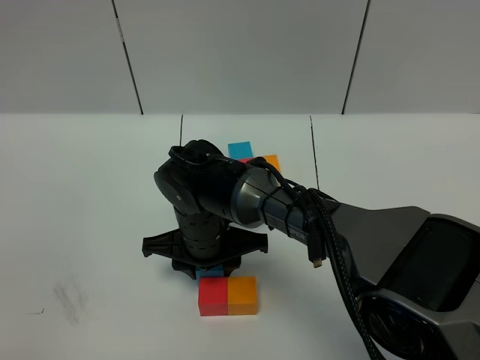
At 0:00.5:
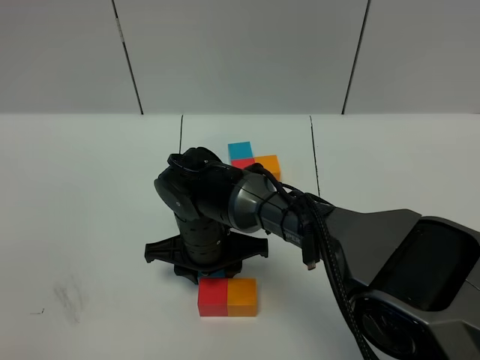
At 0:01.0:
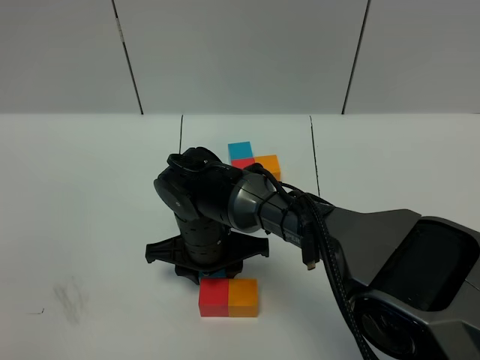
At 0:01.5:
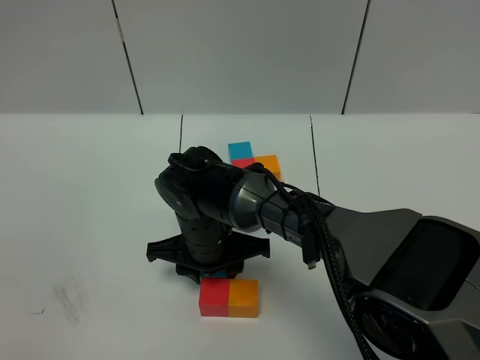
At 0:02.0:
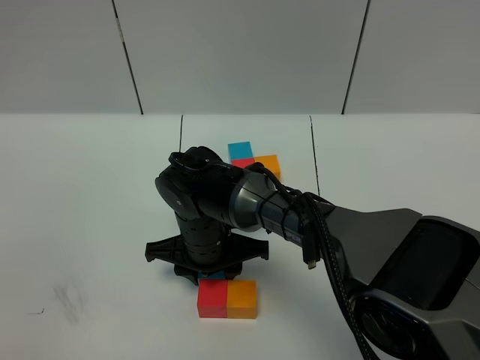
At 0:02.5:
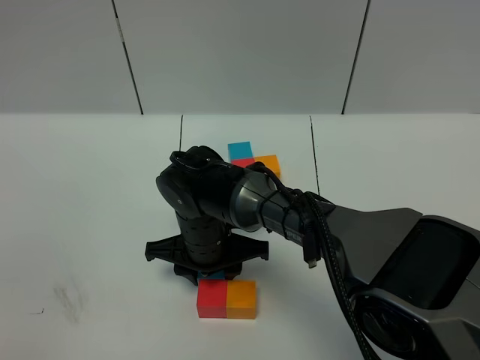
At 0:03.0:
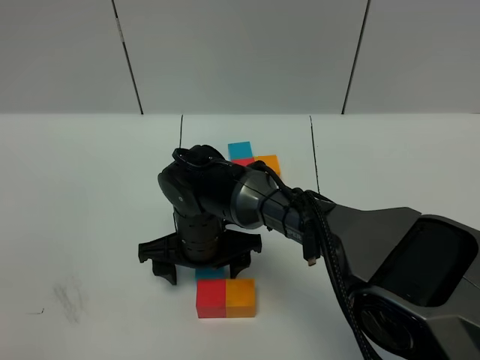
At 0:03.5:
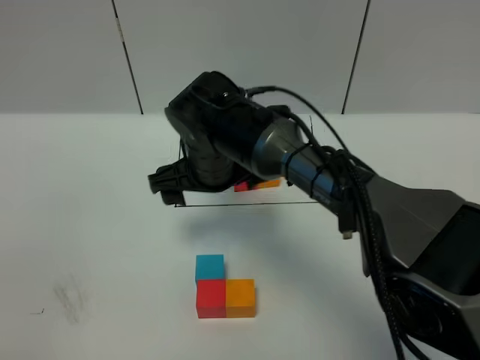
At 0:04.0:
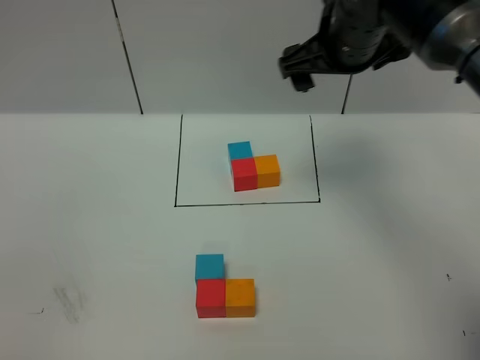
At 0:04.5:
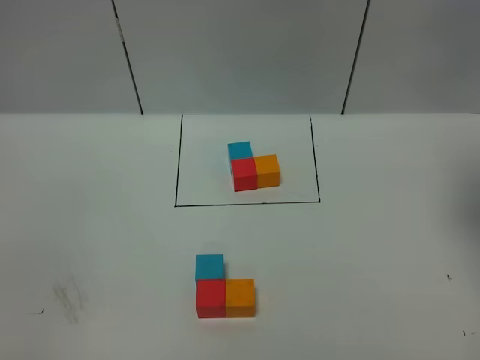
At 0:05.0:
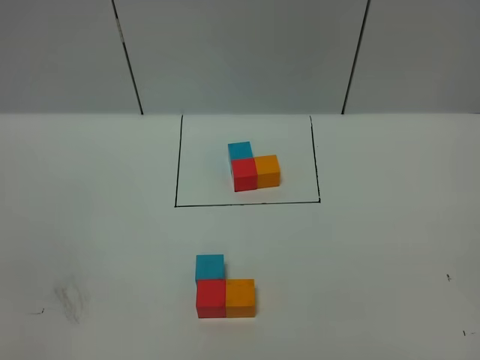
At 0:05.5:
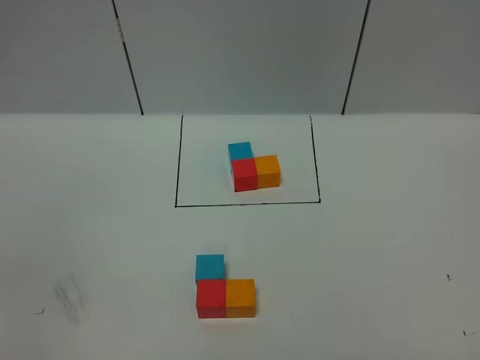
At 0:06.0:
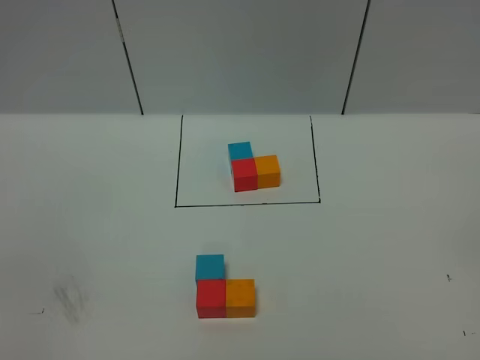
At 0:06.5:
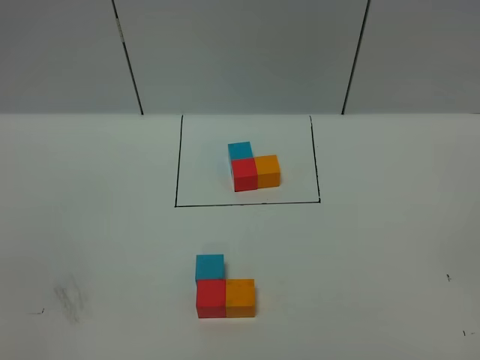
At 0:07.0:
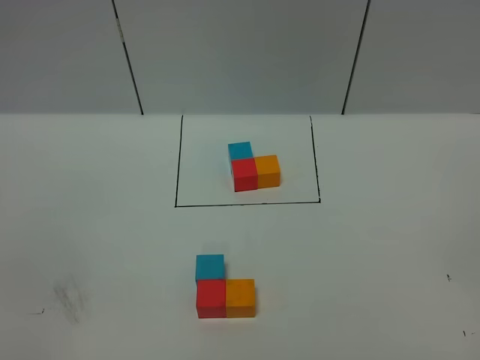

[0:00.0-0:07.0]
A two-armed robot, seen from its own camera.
Task of the whole recording: According to the building block template in front, assemble the scattered blocks together.
Step, 0:00.0 to 0:03.0: Put the blue cube on the behind of the red cube.
0:00.0 to 0:02.0: Neither gripper changes place.
0:02.0 to 0:03.5: The right gripper is displaced upward by some 10 cm, and opens.
0:03.5 to 0:05.0: The right gripper moves to the right, backward and upward, some 50 cm.

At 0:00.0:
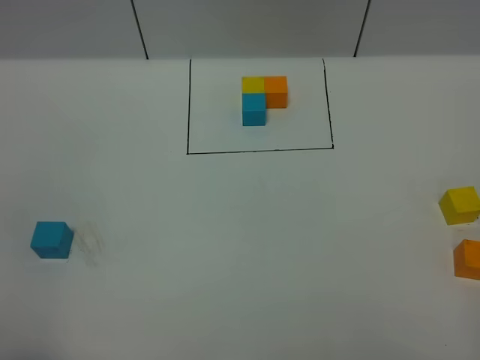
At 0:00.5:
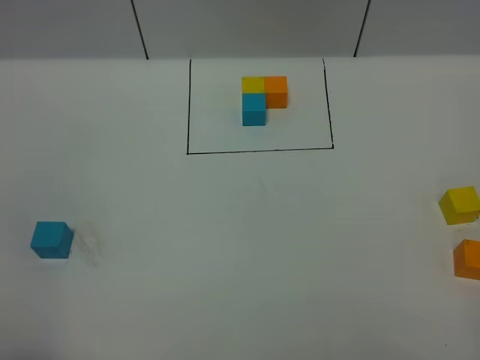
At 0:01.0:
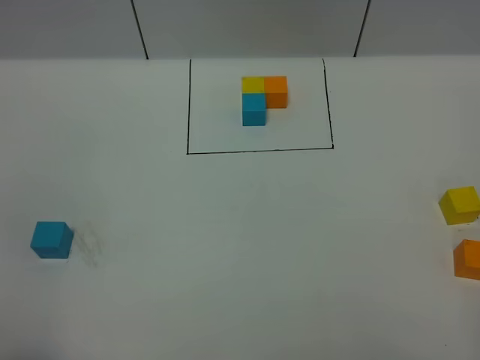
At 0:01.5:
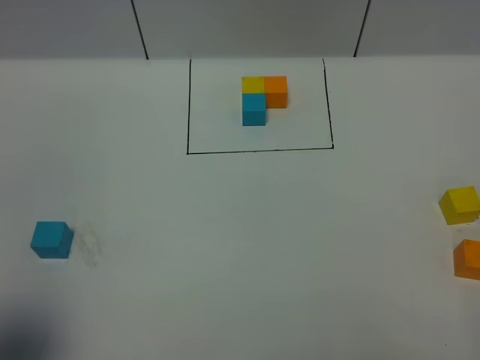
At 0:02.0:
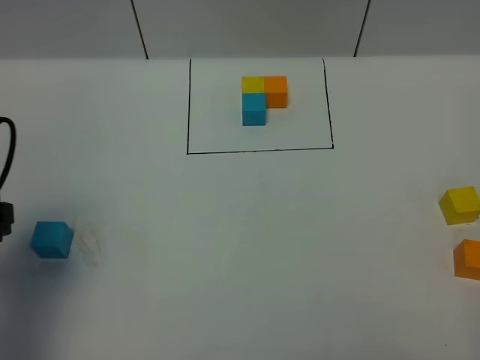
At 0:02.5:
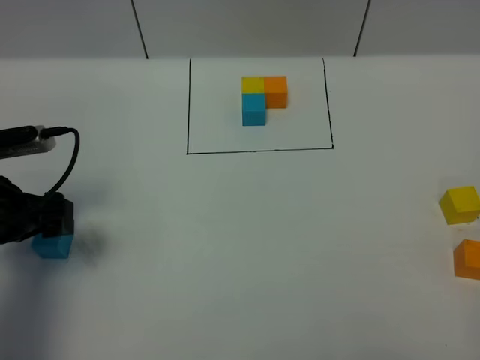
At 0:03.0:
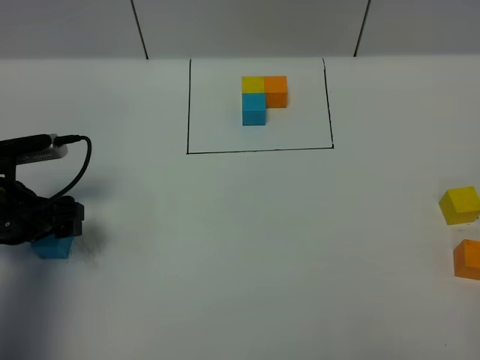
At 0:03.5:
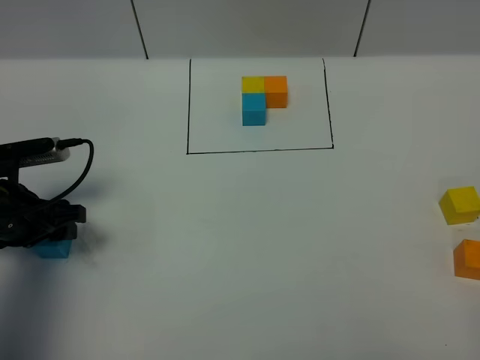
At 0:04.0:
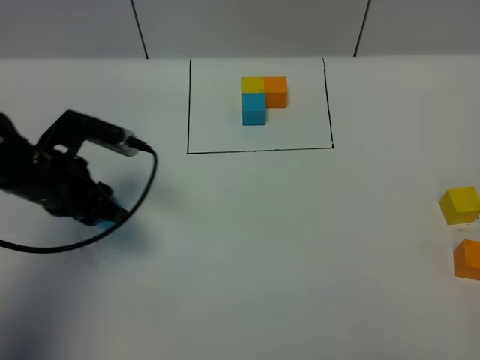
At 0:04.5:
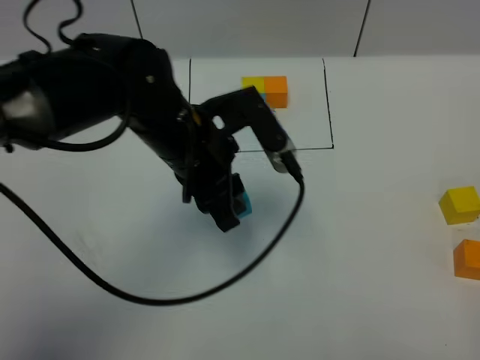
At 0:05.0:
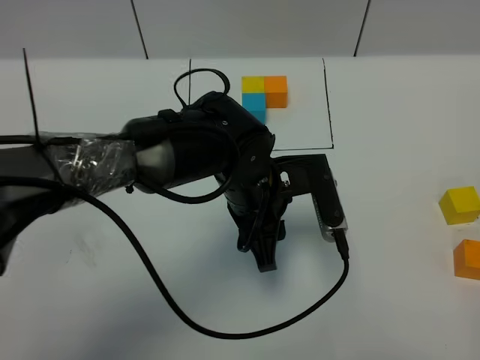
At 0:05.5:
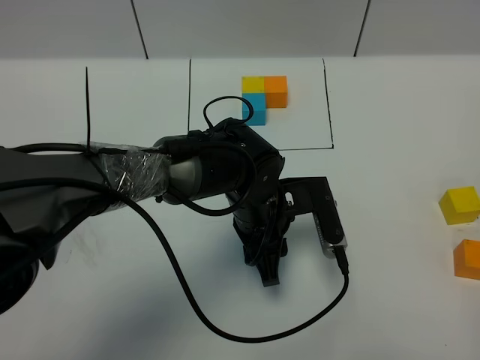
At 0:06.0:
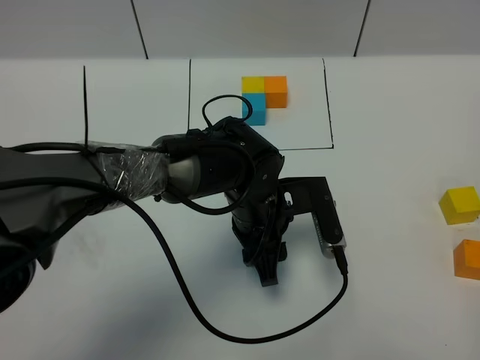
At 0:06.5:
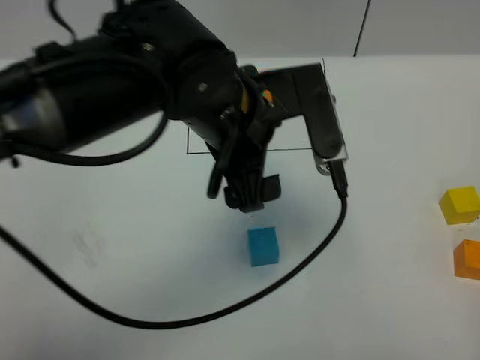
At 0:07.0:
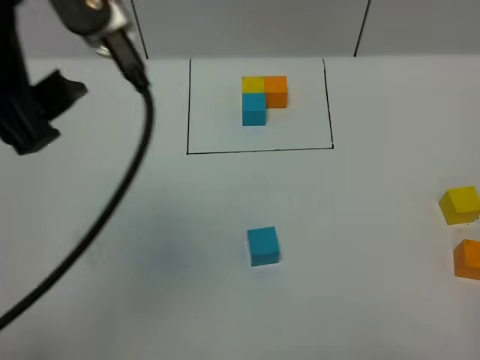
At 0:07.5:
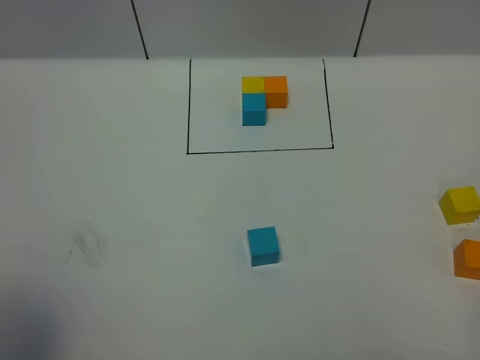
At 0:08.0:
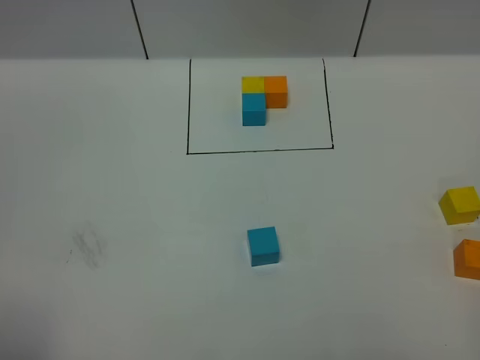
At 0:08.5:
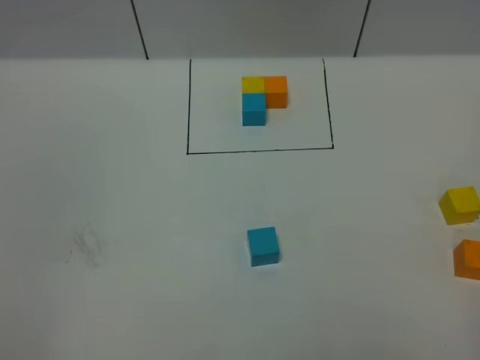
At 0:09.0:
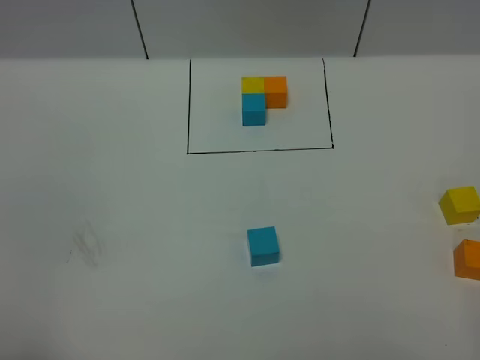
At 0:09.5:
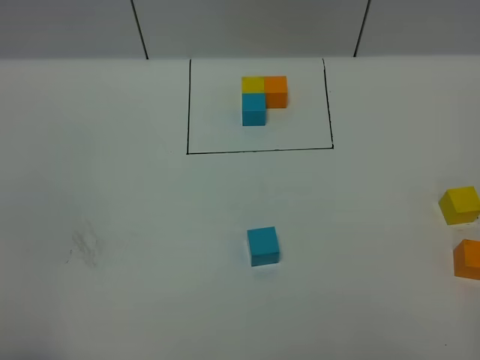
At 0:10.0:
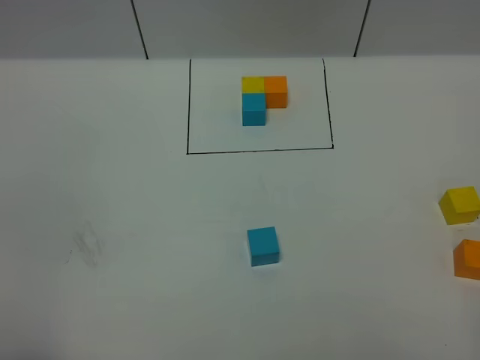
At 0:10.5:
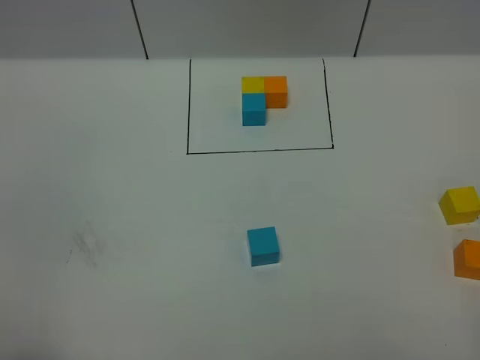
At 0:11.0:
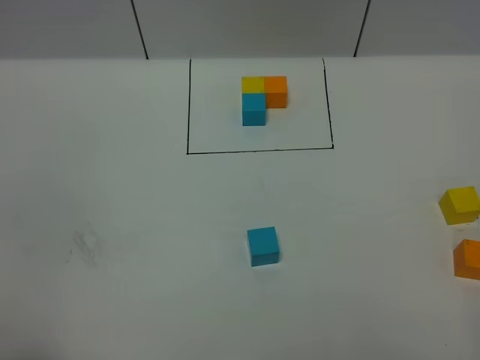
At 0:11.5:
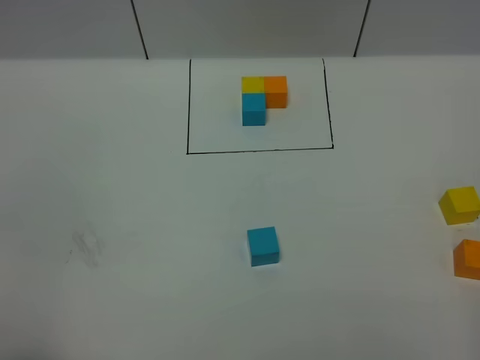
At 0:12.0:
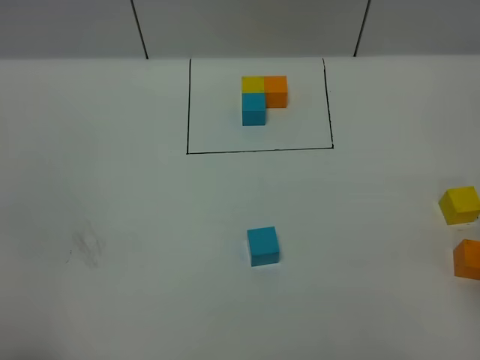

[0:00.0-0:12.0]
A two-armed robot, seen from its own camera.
Task of the whole recording: According to the building block template in front, assemble the scattered blocks together.
Step, 0:02.0 to 0:06.5: Put the blue cube in the center of the table.
0:00.0 to 0:02.0: The left gripper is displaced forward by some 20 cm.
0:02.0 to 0:04.0: The left gripper shifts about 15 cm forward, to the right and downward, and closes.
0:04.0 to 0:06.0: The left gripper goes roughly 25 cm to the right.
0:06.0 to 0:08.0: The left gripper goes approximately 50 cm to the left, backward and upward, and opens up.

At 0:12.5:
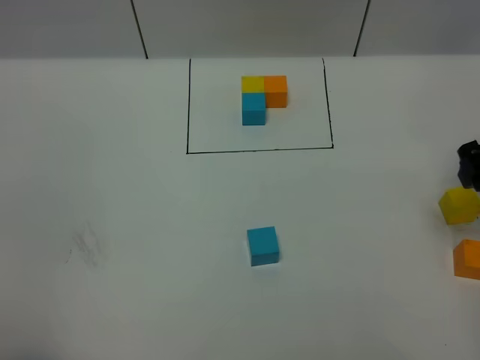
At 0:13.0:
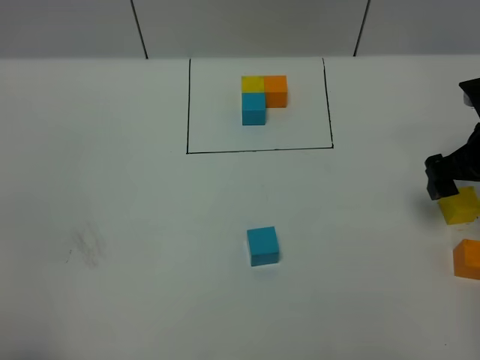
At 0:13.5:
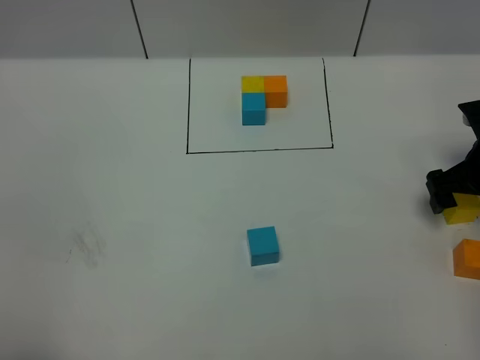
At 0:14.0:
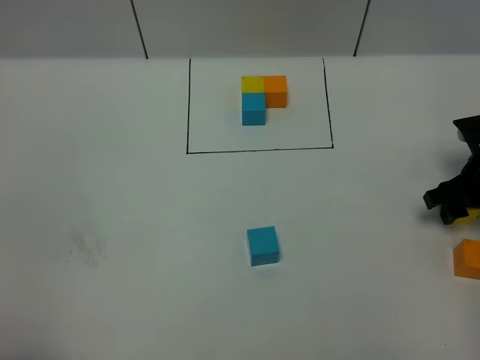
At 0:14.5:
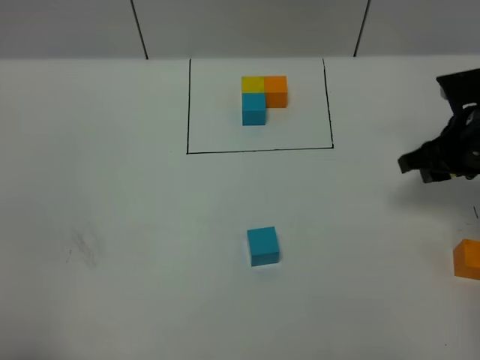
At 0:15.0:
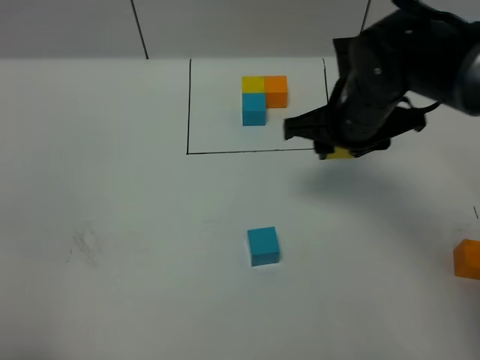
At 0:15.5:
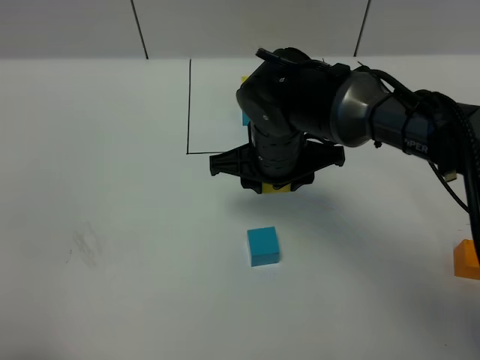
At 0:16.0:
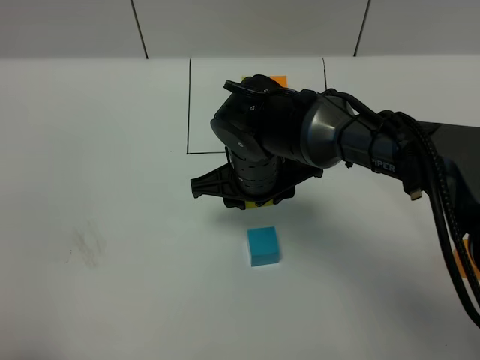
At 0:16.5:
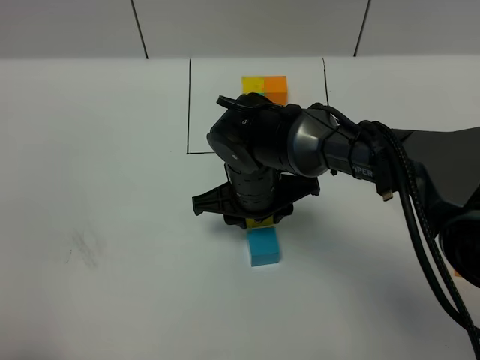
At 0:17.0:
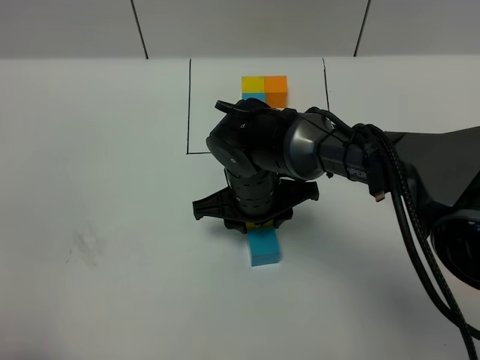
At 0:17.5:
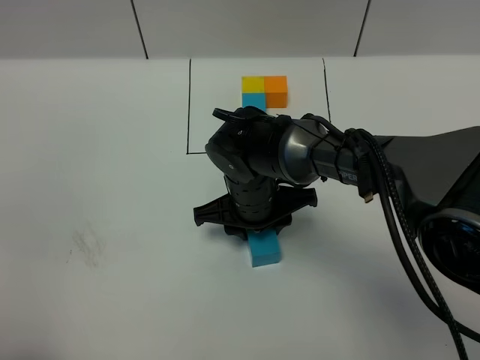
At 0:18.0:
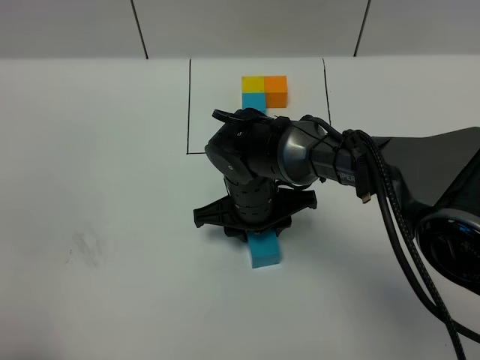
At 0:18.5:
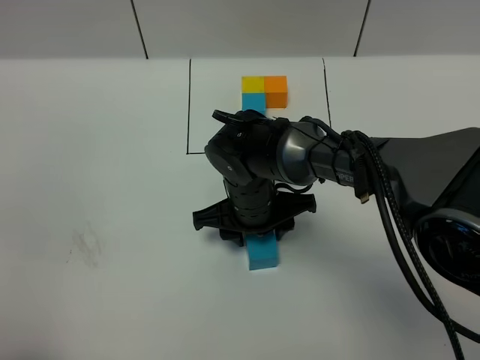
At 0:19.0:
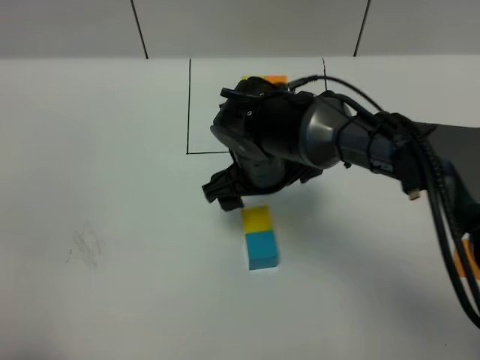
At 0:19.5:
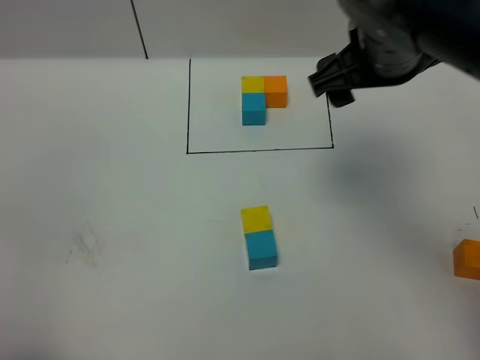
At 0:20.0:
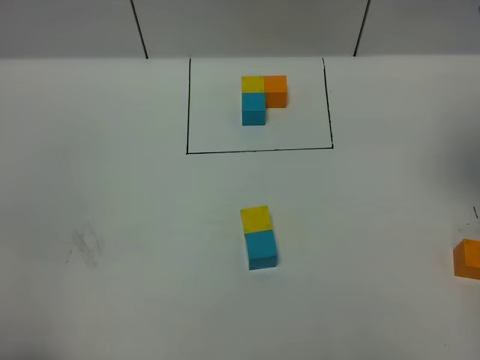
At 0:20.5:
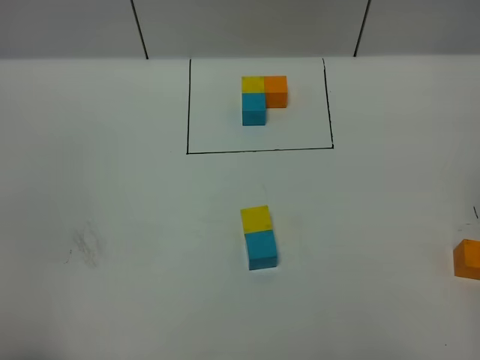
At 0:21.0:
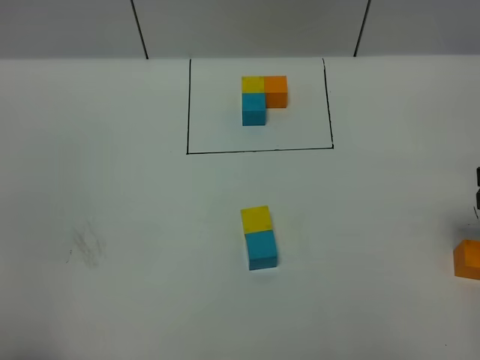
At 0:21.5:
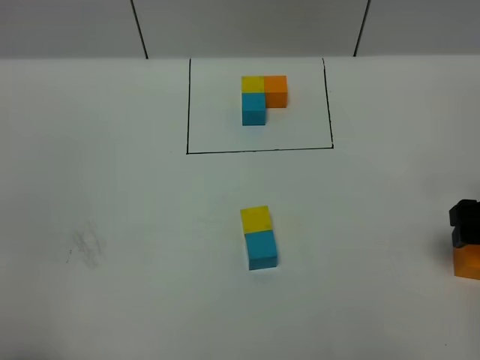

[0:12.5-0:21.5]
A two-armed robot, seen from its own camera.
Task of the whole recording: According to the building block template in front, assemble the scattered blocks together.
Step, 0:12.5 to 0:19.0: Put the yellow cube in the front of the blue cube.
0:12.5 to 0:14.5: The right gripper moves downward, about 5 cm, and closes up.
0:14.5 to 0:17.0: The right gripper travels to the left by roughly 25 cm.
0:17.0 to 0:19.5: The right gripper goes roughly 25 cm upward and to the right, and opens up.
0:19.5 to 0:21.5: The right gripper goes roughly 25 cm to the right, downward and backward.
